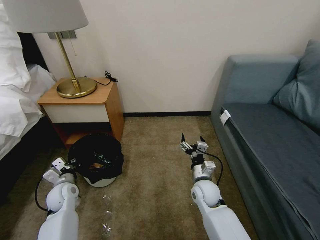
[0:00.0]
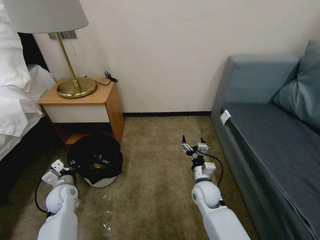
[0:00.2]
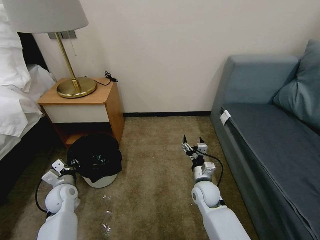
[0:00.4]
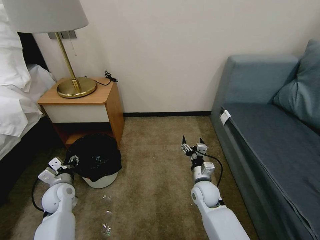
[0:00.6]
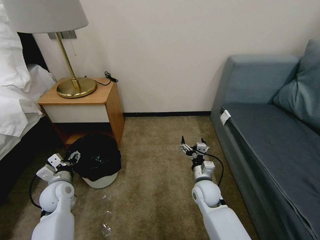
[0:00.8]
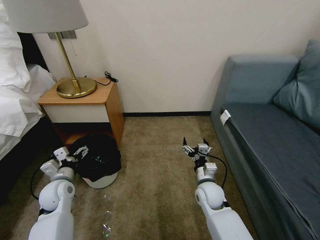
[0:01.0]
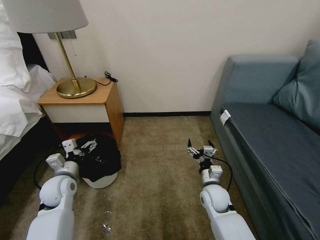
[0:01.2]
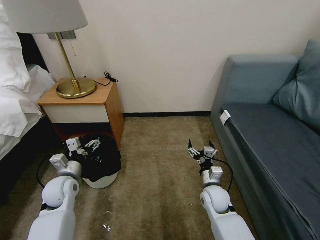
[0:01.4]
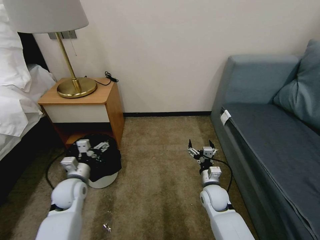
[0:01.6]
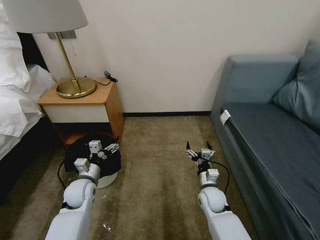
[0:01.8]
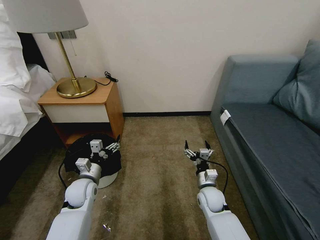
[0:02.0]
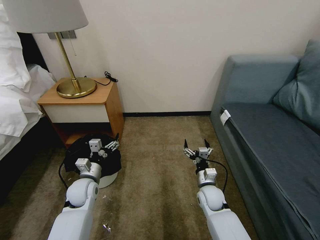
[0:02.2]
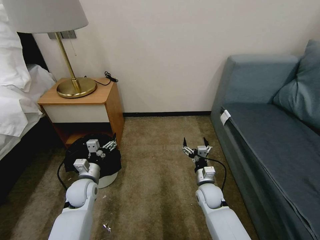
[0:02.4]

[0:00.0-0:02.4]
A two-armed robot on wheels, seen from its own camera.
Task of the whole recording: Pick up the trash bin, then pick up the garbage on the floor and place it into the trash bin.
0:00.0 to 0:01.2: The left gripper heads upward, covering some 5 cm, and opens.
0:01.2 to 0:02.4: The left gripper shifts approximately 5 cm to the right.
